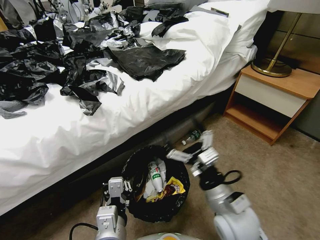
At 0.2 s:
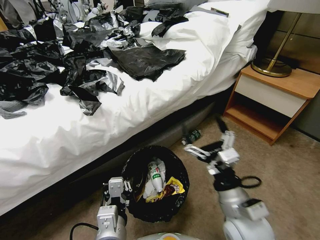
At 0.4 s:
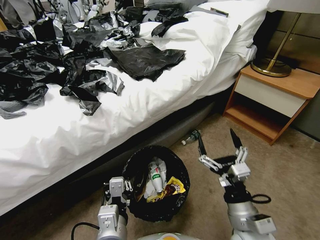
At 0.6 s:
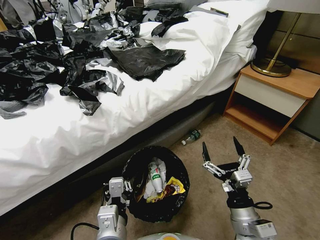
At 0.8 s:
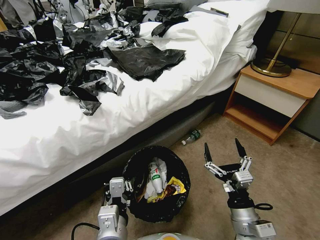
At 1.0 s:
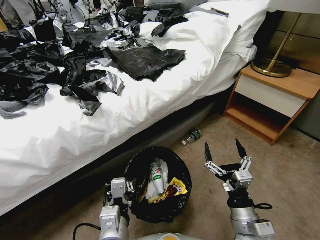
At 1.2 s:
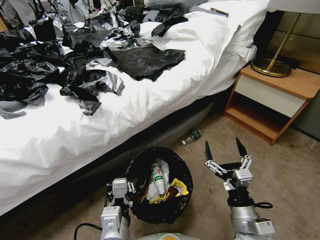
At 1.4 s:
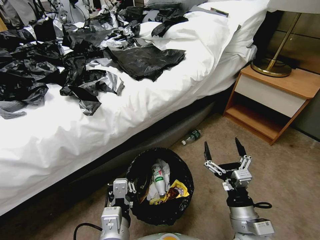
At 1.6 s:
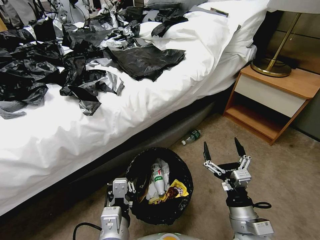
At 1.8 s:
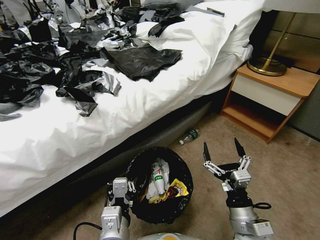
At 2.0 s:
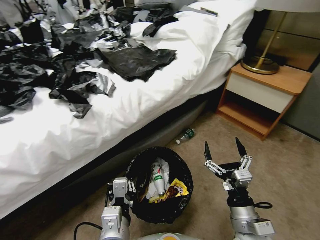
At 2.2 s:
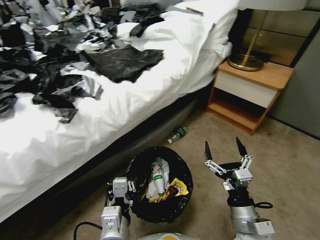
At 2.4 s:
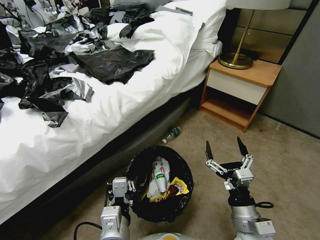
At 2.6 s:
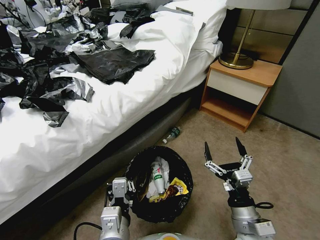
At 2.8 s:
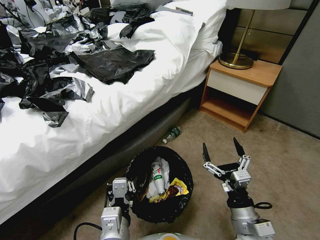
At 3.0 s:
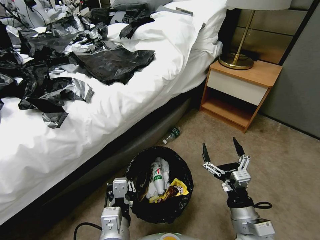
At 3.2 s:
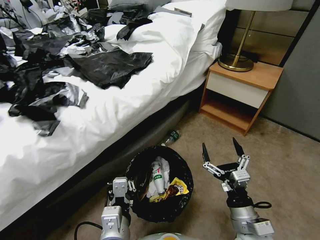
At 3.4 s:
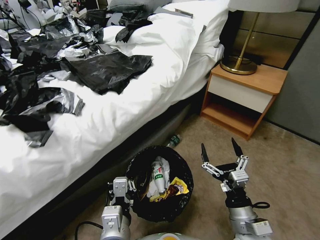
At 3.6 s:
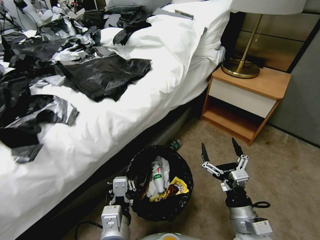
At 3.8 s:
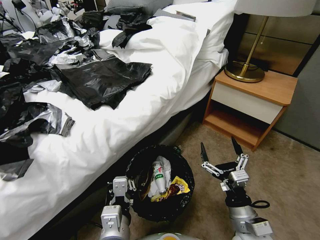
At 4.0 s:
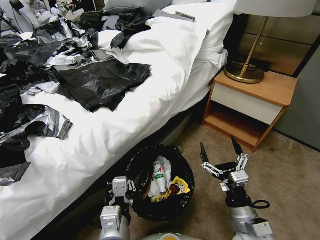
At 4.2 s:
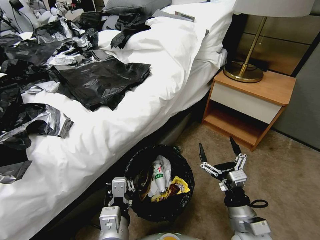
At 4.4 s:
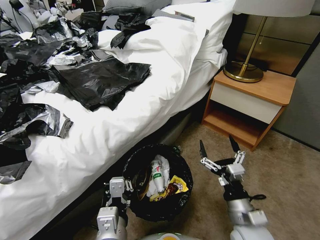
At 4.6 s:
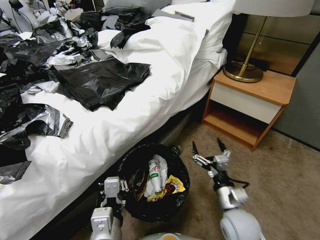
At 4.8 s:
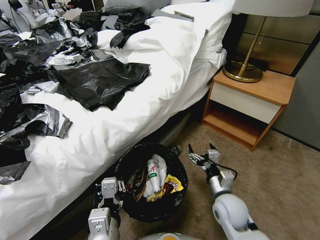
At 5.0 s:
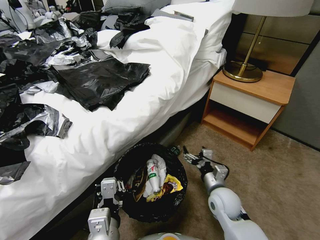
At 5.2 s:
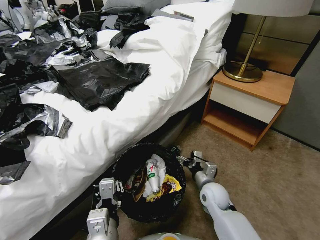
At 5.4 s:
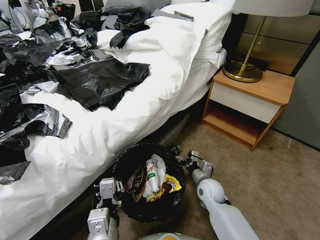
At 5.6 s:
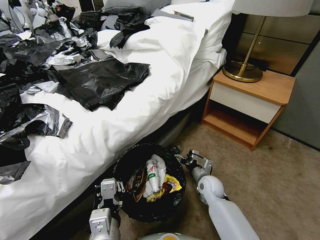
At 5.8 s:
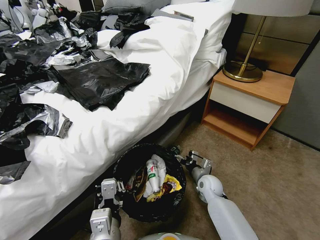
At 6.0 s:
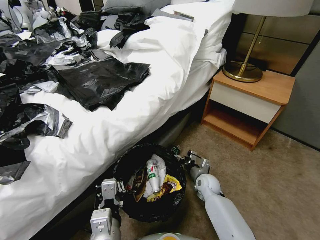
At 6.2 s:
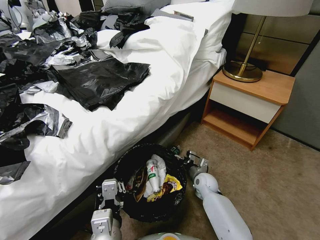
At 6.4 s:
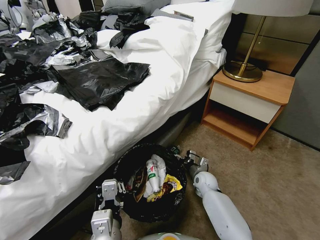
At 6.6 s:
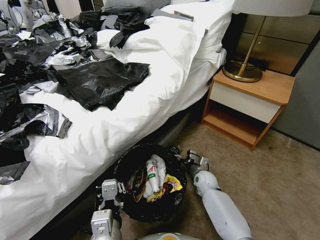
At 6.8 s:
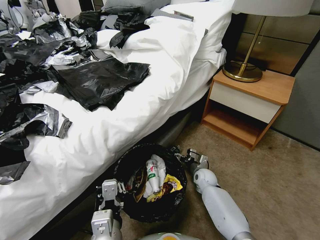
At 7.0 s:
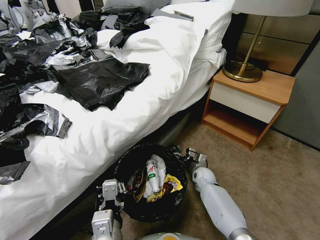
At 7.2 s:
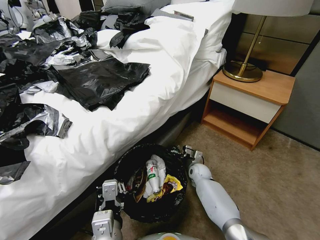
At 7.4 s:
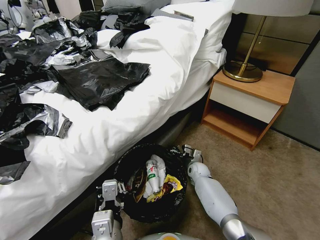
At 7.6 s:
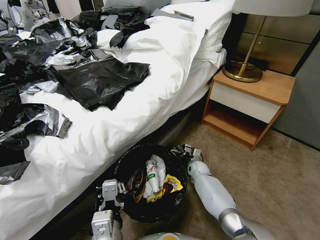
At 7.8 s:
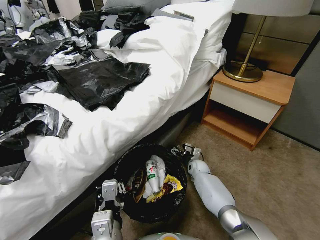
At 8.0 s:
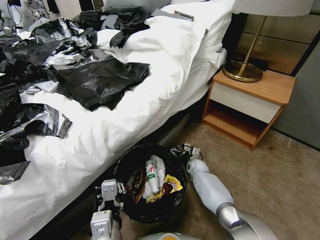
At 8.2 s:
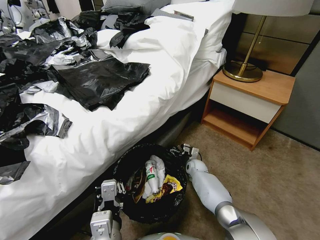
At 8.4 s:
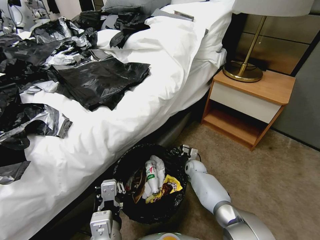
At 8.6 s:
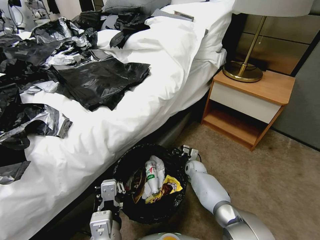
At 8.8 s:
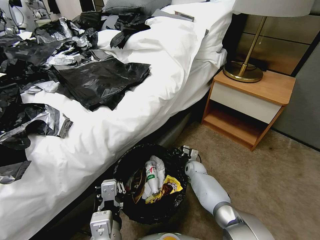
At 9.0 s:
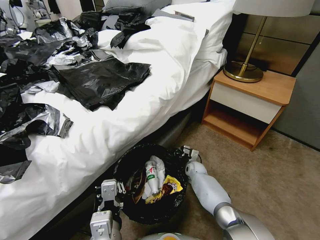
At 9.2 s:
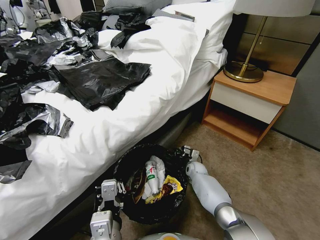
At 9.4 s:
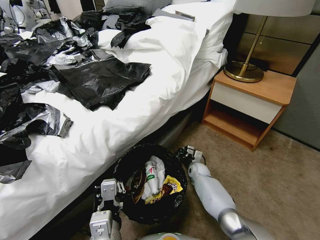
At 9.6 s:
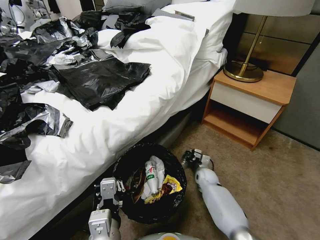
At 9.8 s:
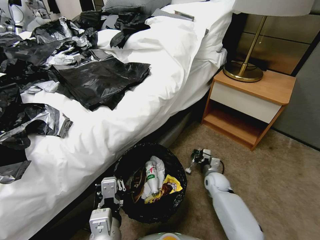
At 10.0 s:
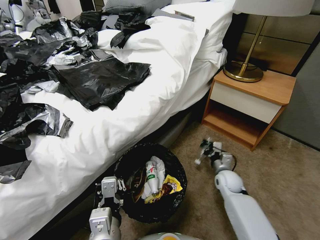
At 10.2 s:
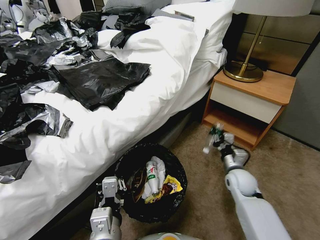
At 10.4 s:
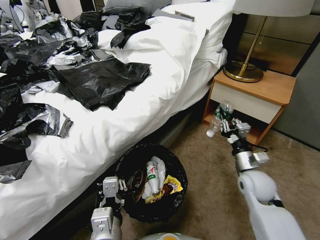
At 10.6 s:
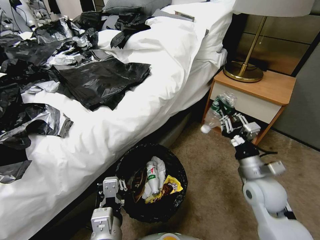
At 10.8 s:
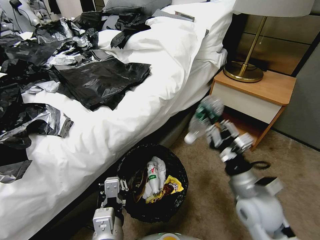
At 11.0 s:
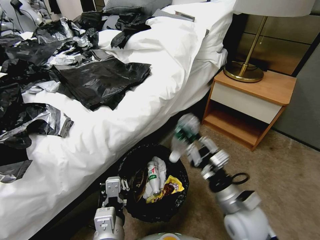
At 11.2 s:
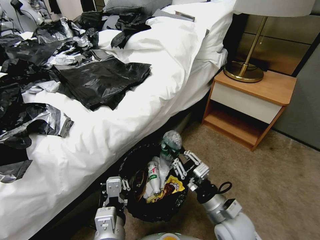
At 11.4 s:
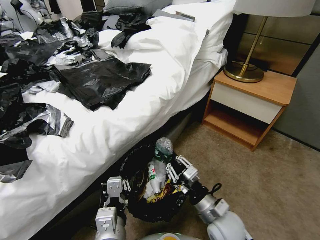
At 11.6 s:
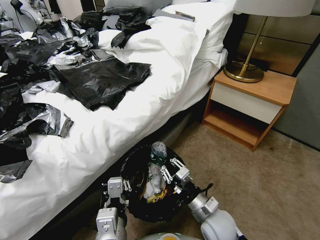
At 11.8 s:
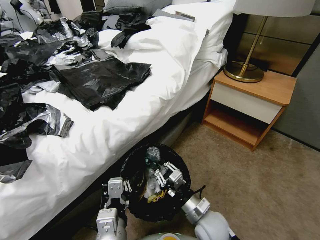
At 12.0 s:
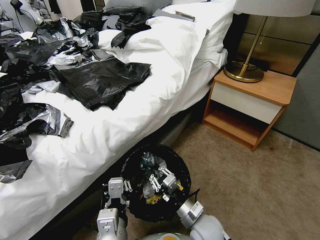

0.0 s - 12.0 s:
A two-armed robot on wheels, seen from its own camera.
Task of the whole recording: Pick up the trash bin, then pick up the garbage from the floor and place it into the trash bin.
0.0 s - 1.6 s: The right gripper is displaced downward by roughly 5 cm.
4.4 s - 6.0 s: The right gripper moves forward and downward, some 25 cm.
6.0 s - 7.6 s: The right gripper is displaced forward by roughly 10 cm.
7.6 s - 9.0 s: The right gripper closes its fingers.
9.0 s - 10.4 s: The right gripper heads upward, backward and to the right, covering roughly 30 cm.
10.4 s - 12.0 s: The right gripper is displaced to the left, backward and downward by roughly 20 cm.

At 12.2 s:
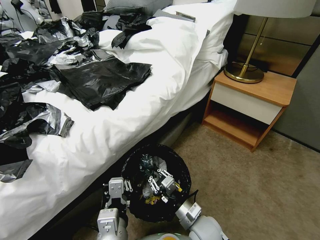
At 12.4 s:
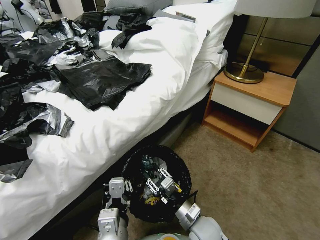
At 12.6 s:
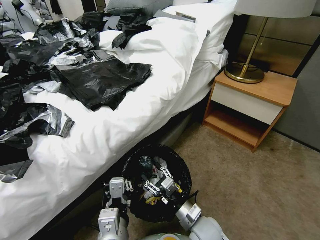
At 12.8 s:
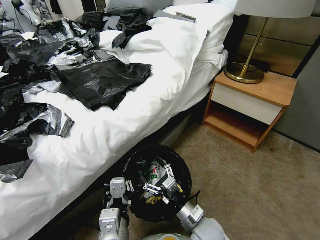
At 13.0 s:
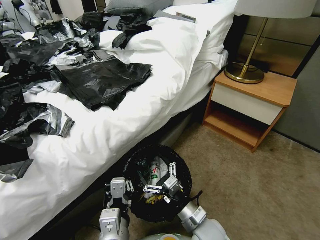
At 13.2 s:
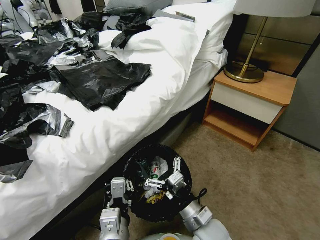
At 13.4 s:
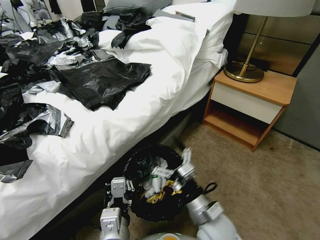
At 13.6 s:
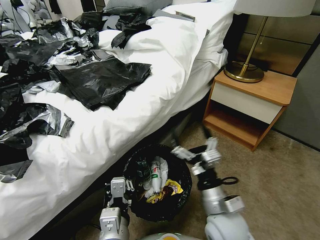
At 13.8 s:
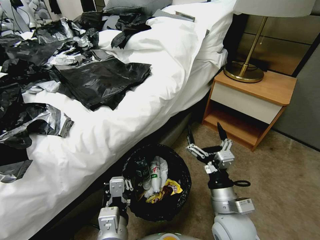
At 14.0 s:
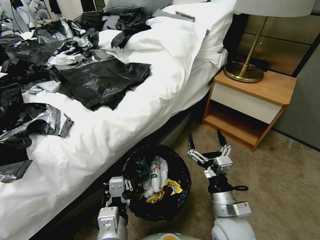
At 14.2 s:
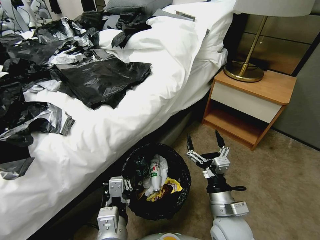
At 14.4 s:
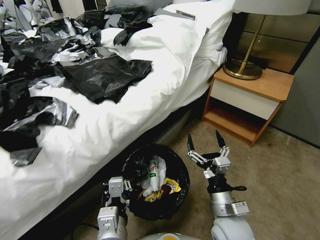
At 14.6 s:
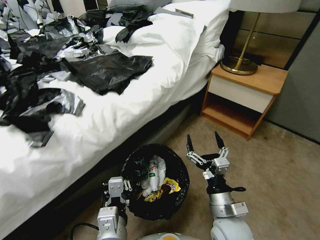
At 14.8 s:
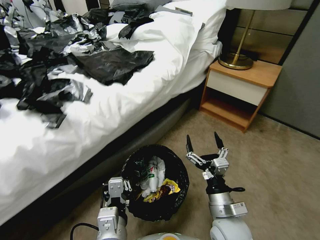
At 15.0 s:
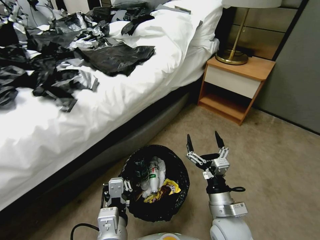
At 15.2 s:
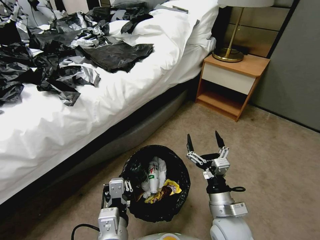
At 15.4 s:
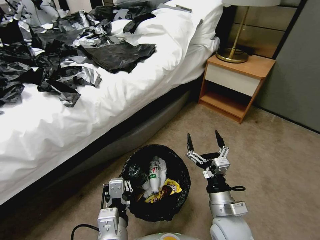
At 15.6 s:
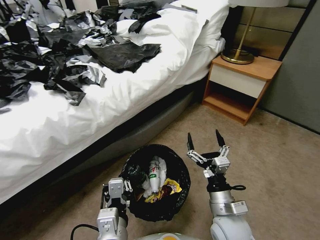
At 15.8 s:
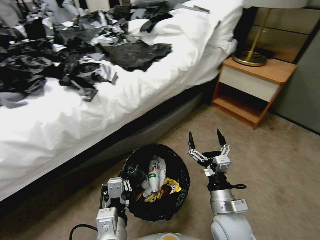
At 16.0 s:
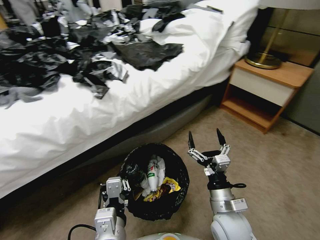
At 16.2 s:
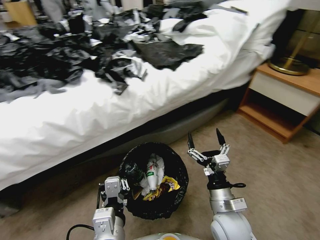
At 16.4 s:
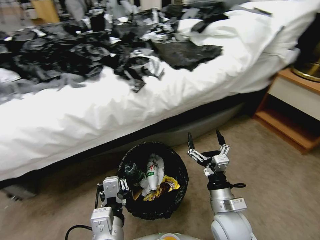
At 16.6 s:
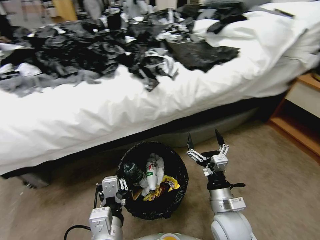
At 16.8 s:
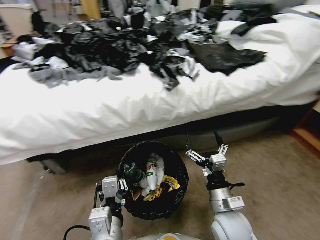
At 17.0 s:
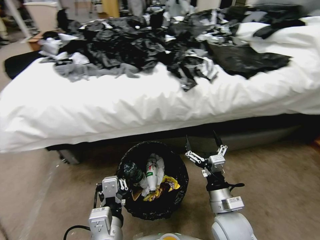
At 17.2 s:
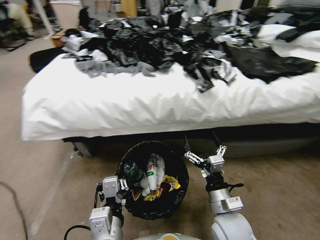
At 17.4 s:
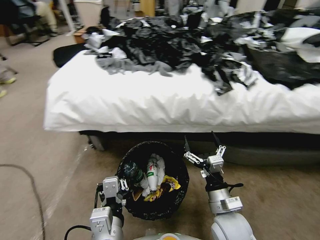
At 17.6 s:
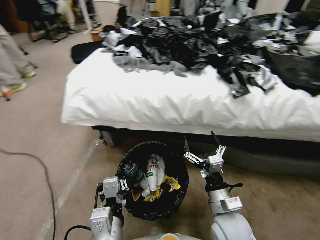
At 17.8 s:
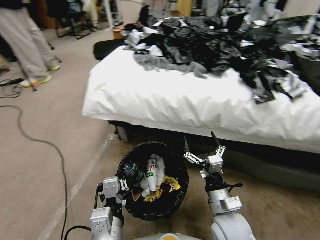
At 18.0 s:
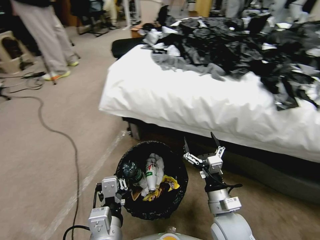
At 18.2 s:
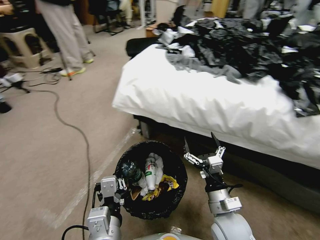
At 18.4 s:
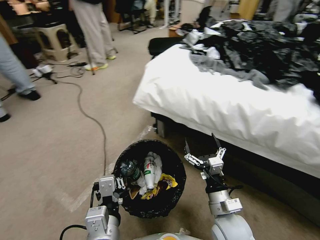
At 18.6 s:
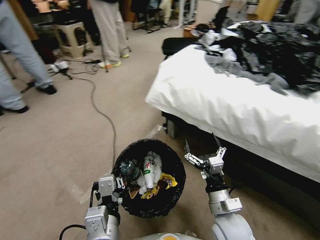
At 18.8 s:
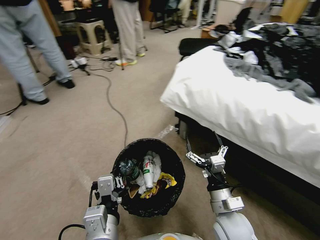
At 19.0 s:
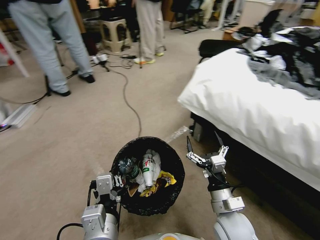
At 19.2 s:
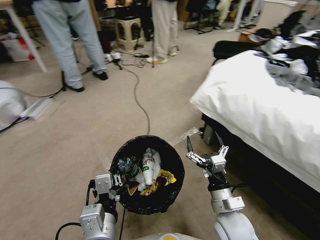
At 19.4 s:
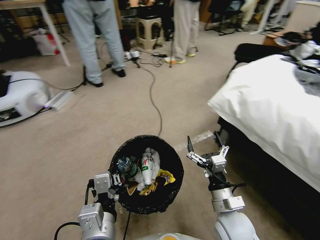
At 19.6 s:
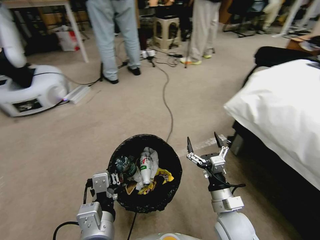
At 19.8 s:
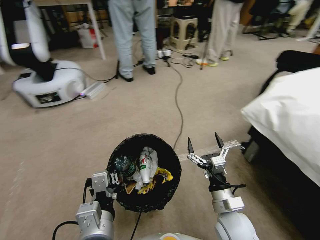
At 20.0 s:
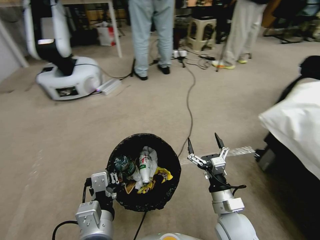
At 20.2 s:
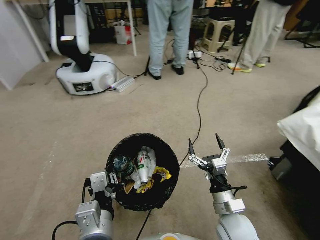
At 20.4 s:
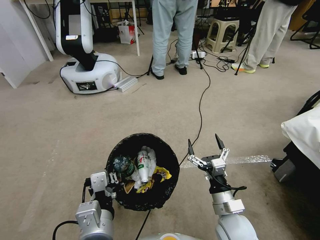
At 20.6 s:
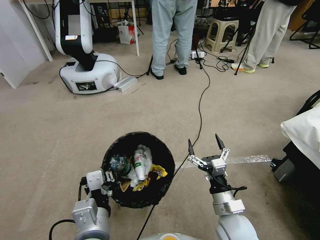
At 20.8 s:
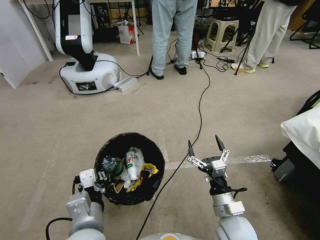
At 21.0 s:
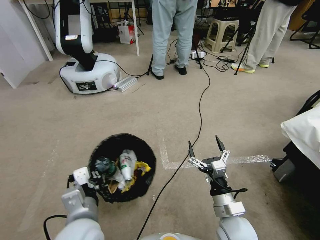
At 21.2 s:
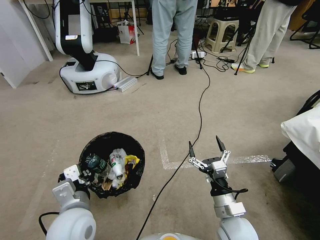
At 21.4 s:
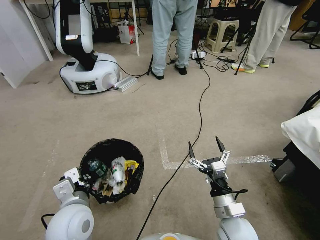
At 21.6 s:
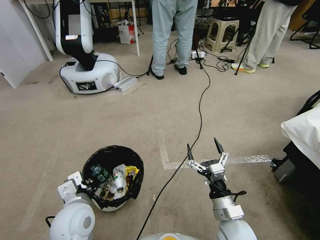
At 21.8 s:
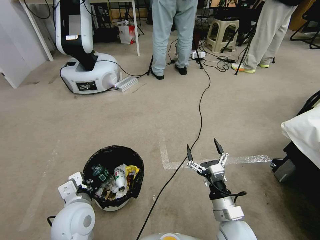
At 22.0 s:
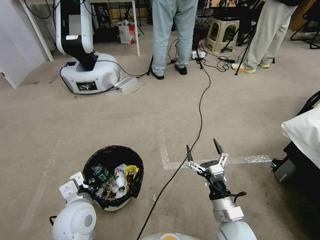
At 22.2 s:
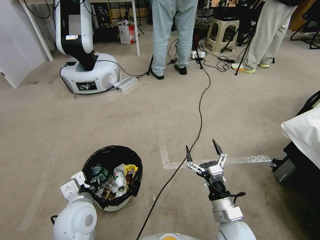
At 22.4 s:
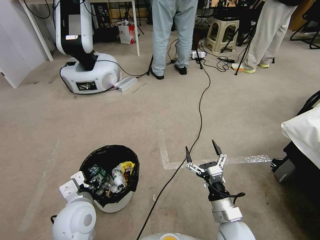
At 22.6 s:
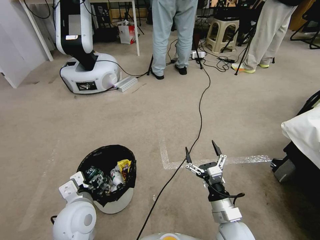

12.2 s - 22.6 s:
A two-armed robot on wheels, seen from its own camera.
Task of the whole recording: Pick up the trash bin, then pick up the garbage from the floor and place it into the trash bin.
12.2 s - 13.6 s: The right gripper moves upward, about 10 cm, and opens its fingers.
19.6 s - 21.2 s: The left gripper goes approximately 10 cm to the left and forward.
21.2 s - 22.6 s: The left gripper opens.
